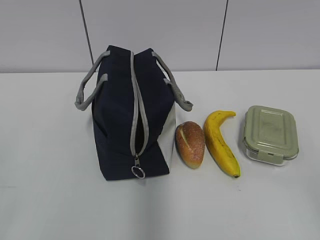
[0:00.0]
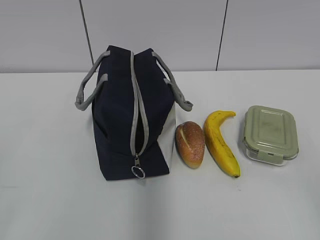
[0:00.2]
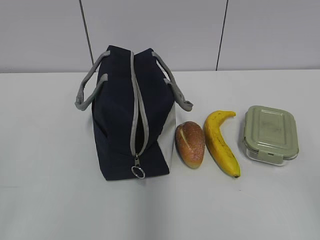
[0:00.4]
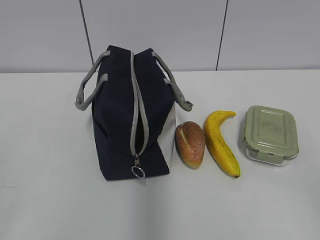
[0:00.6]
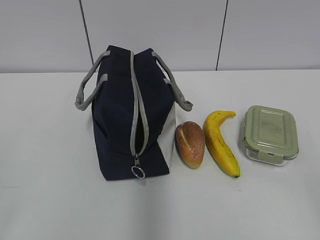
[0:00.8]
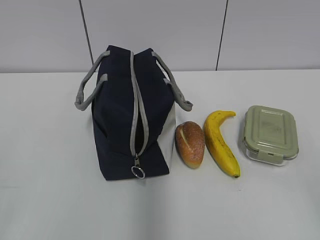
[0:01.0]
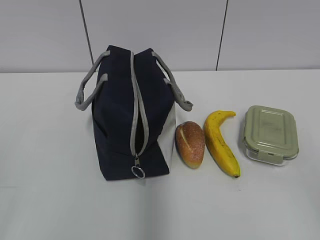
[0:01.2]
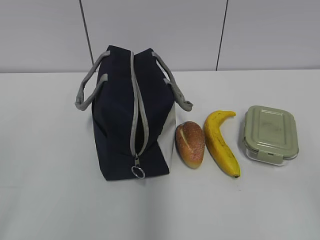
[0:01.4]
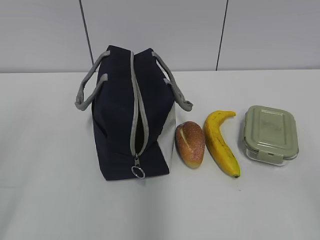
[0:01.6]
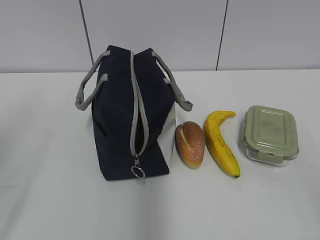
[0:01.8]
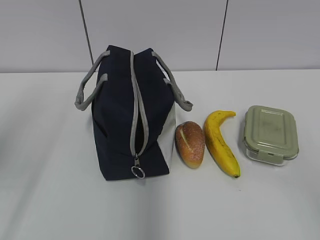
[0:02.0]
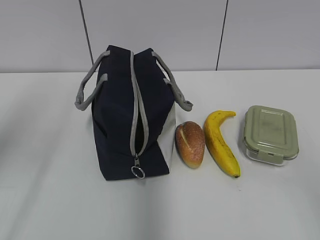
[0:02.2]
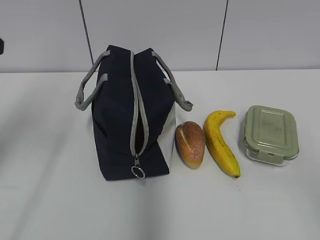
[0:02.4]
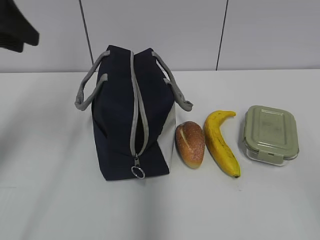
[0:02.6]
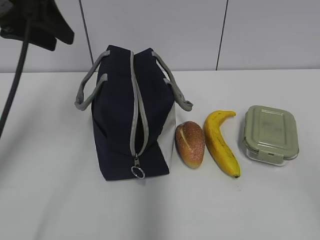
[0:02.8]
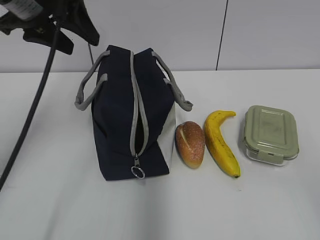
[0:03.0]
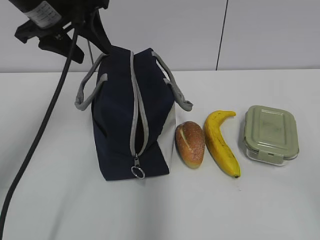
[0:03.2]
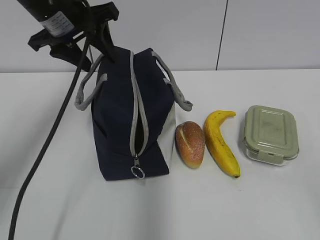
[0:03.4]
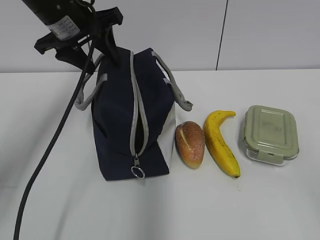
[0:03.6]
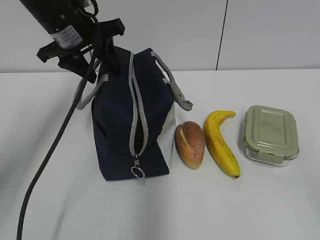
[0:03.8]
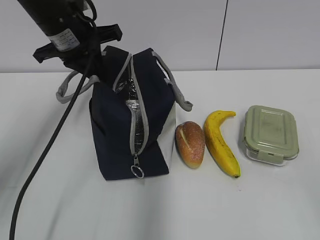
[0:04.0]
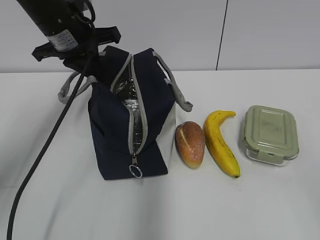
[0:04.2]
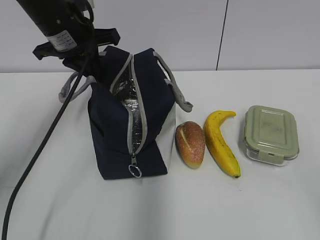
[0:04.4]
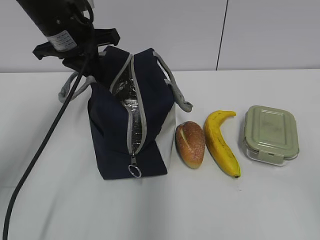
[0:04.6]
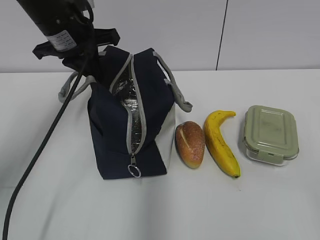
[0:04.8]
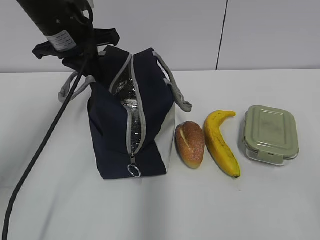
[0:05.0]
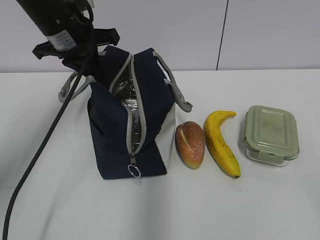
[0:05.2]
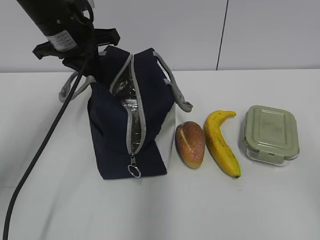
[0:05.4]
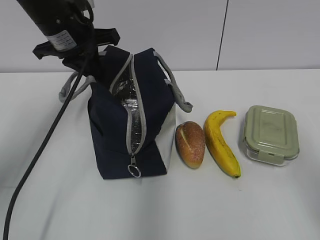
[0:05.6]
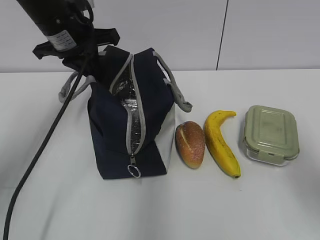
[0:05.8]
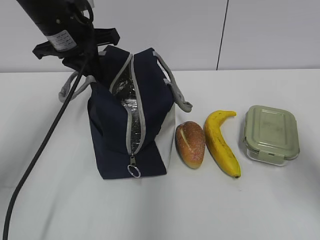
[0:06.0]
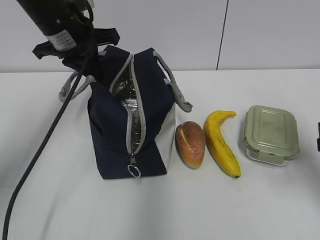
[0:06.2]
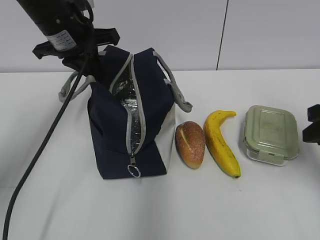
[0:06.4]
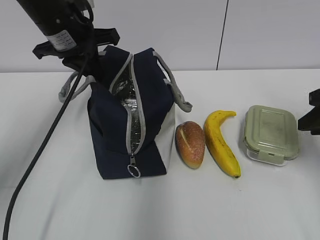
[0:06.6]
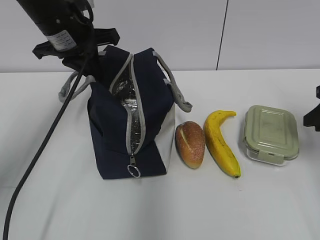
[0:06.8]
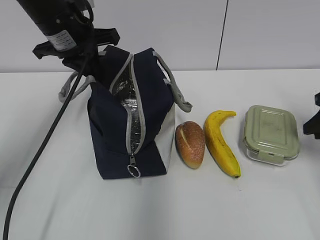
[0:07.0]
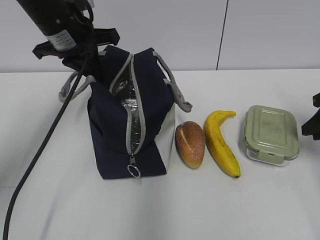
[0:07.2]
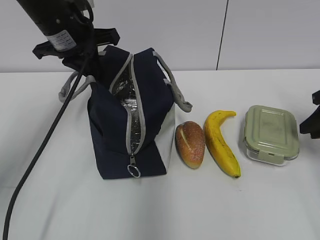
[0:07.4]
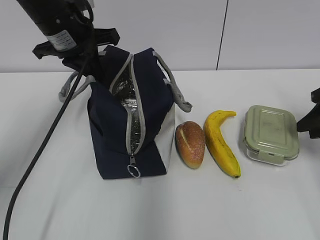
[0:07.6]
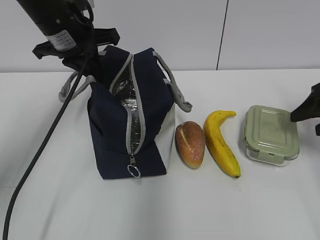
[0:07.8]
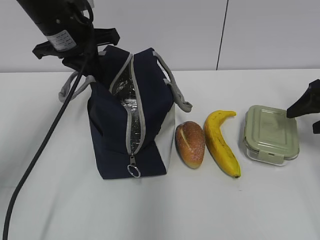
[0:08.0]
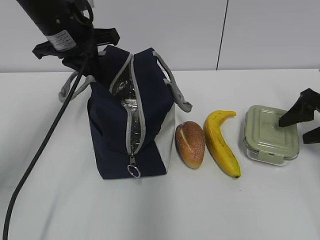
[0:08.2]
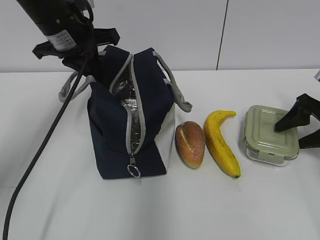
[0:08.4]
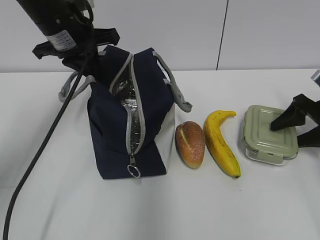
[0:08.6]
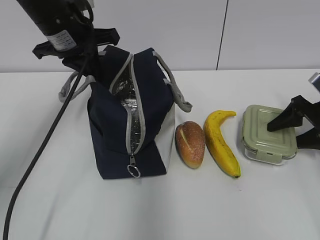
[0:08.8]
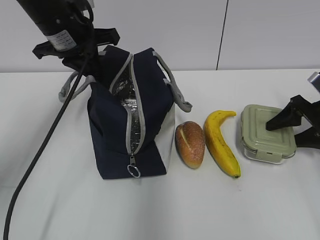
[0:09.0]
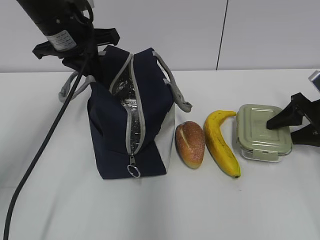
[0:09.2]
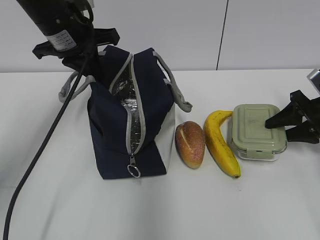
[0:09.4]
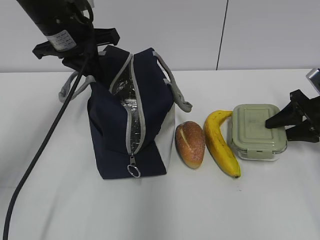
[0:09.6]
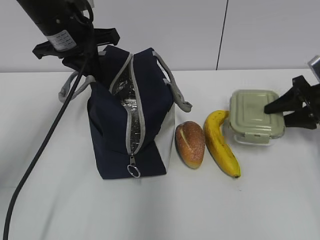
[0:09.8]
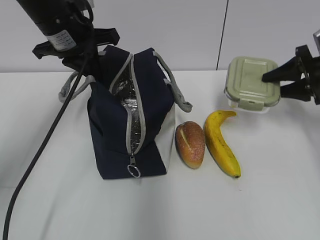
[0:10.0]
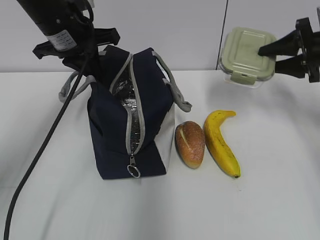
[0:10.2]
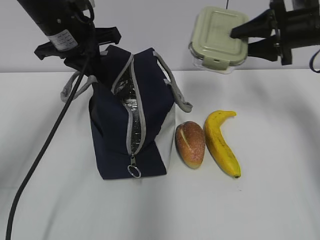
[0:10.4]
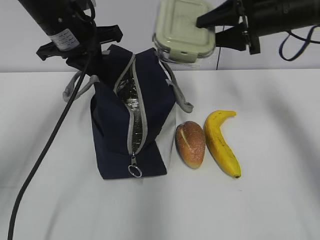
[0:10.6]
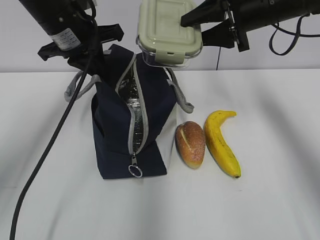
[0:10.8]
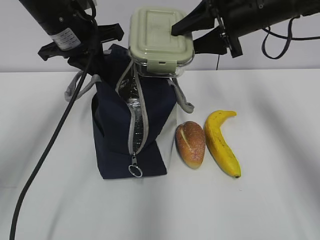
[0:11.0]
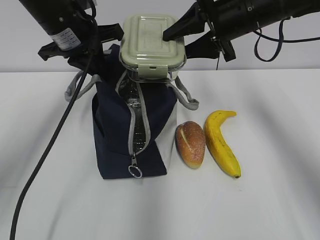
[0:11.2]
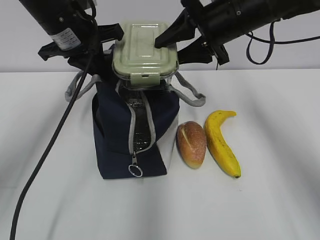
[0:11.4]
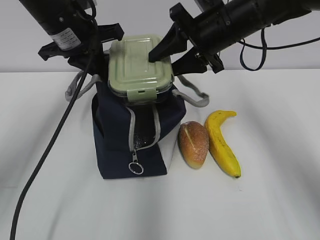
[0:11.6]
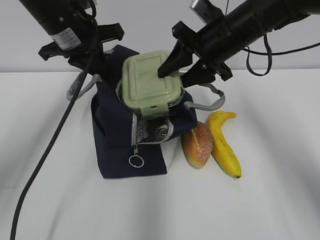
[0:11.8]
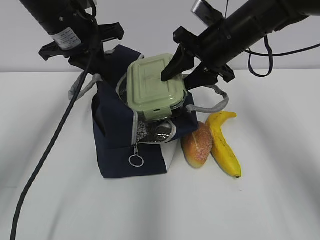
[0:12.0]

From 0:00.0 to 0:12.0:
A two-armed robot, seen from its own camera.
Step, from 0:00.0 to 0:09.2: Grab the lunch box with your right hand.
From 0:01.6 to 0:03.0: The left gripper moves forward and to the right, approximately 30 cm.
From 0:03.0 to 0:04.4: The left gripper is displaced downward and forward by about 10 cm, and closes up.
From 0:04.4 to 0:06.0: The right gripper is displaced forward by some 20 cm.
From 0:06.0 to 0:07.6: The right gripper heads forward, to the right and downward, covering about 20 cm.
From 0:07.6 to 0:09.0: The right gripper moves downward, about 5 cm, and opens up.
From 0:09.0 to 0:10.4: The right gripper shifts about 15 cm upward, to the left and forward.
From 0:10.4 to 0:12.0: The right gripper heads to the left, covering some 15 cm.

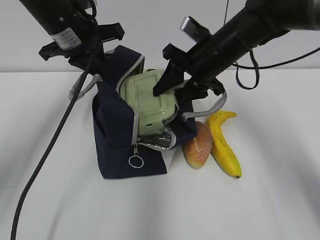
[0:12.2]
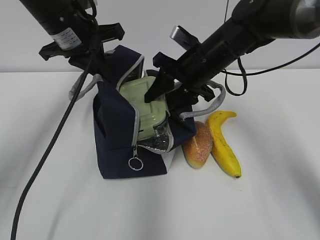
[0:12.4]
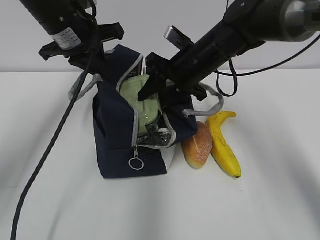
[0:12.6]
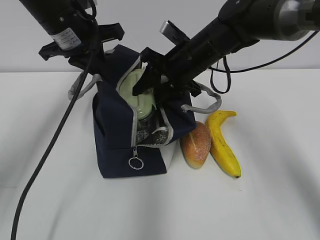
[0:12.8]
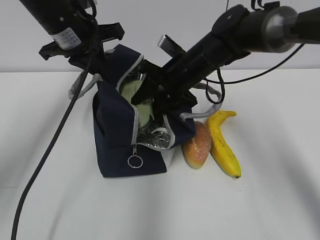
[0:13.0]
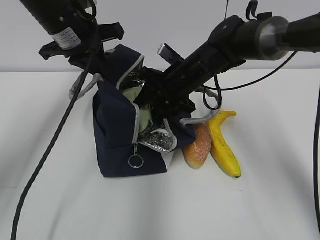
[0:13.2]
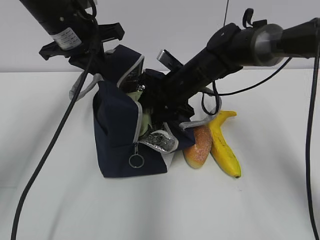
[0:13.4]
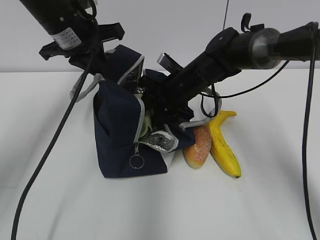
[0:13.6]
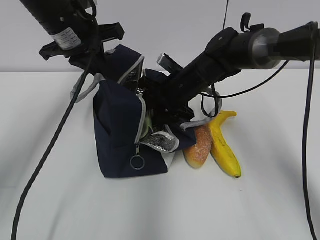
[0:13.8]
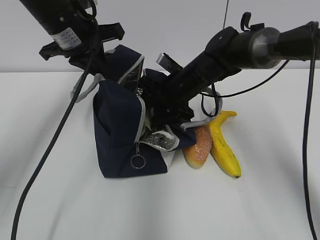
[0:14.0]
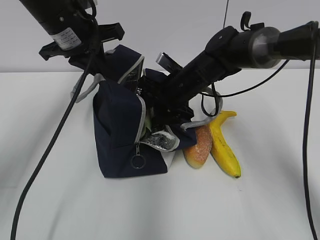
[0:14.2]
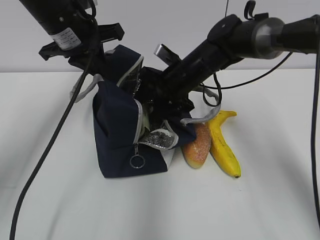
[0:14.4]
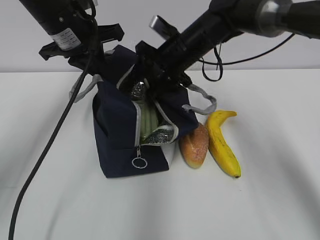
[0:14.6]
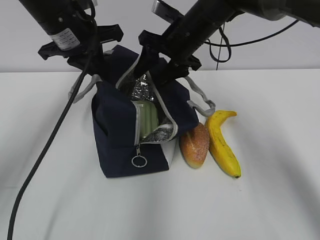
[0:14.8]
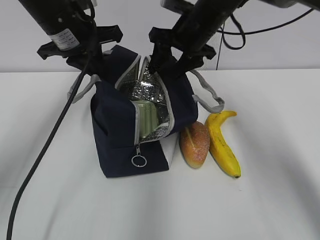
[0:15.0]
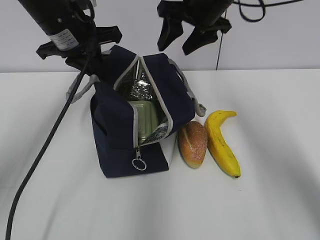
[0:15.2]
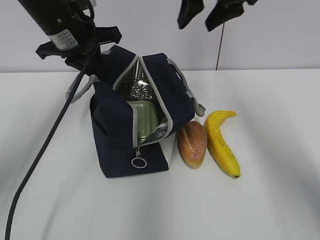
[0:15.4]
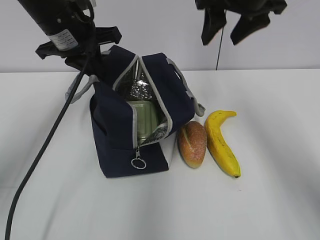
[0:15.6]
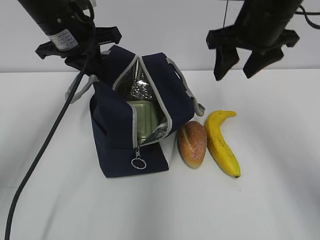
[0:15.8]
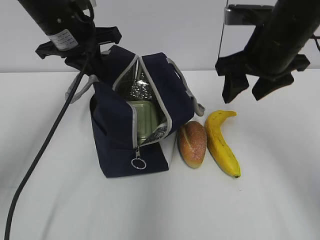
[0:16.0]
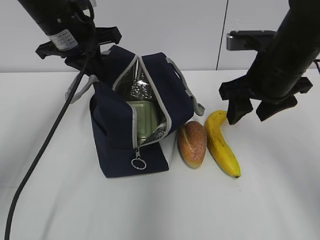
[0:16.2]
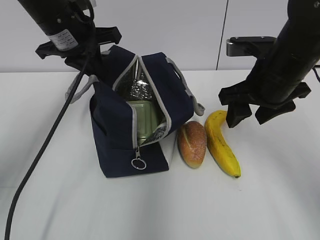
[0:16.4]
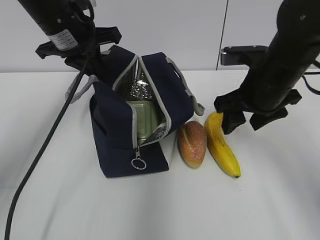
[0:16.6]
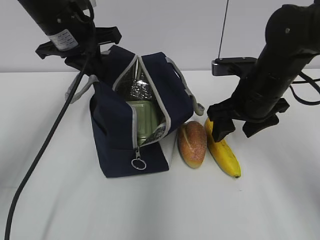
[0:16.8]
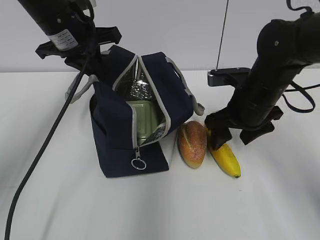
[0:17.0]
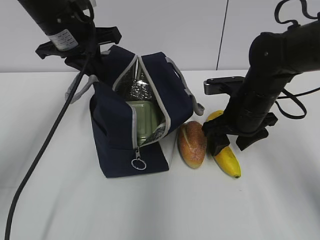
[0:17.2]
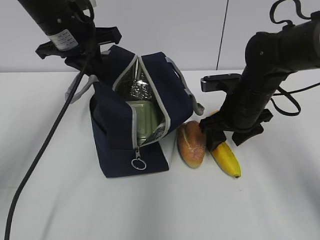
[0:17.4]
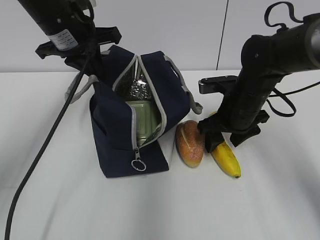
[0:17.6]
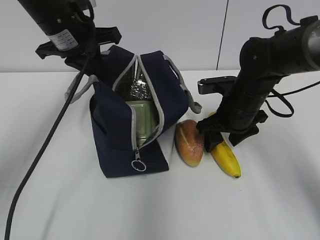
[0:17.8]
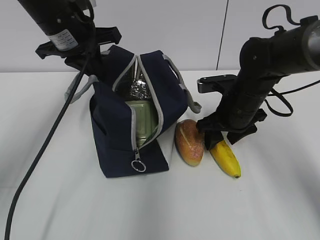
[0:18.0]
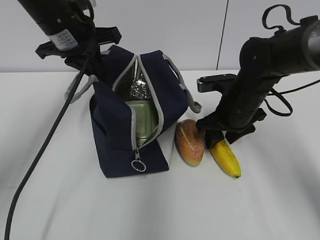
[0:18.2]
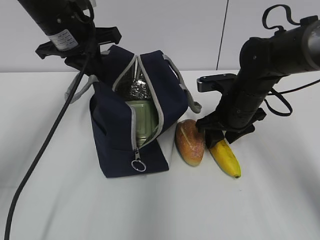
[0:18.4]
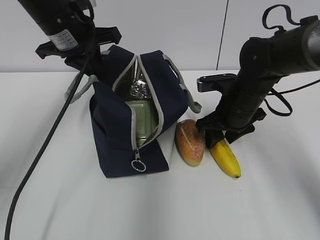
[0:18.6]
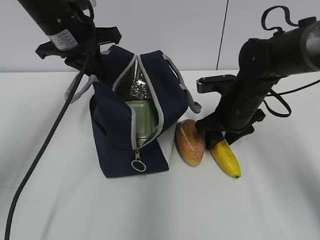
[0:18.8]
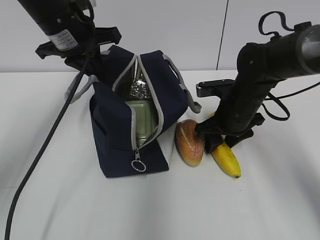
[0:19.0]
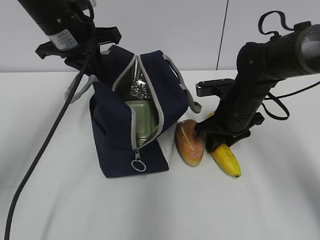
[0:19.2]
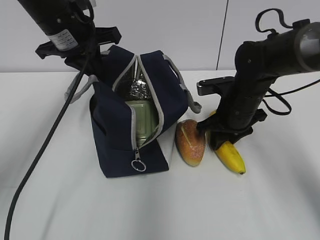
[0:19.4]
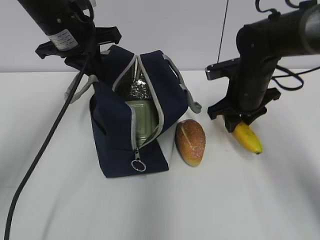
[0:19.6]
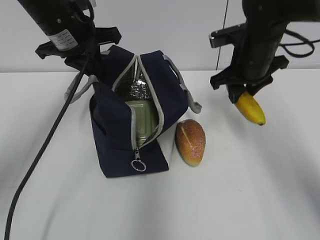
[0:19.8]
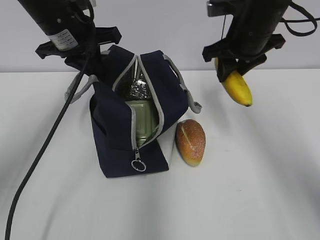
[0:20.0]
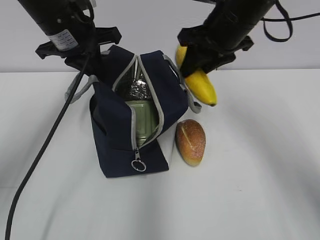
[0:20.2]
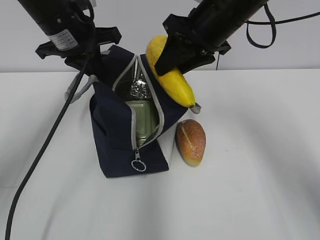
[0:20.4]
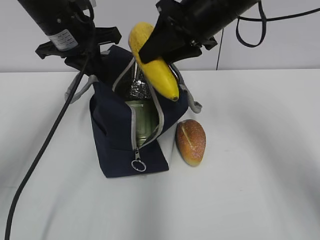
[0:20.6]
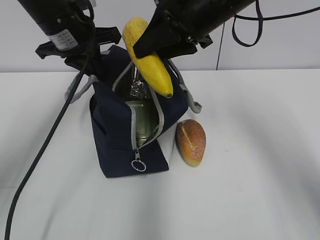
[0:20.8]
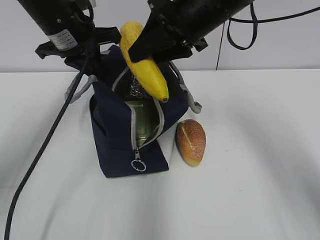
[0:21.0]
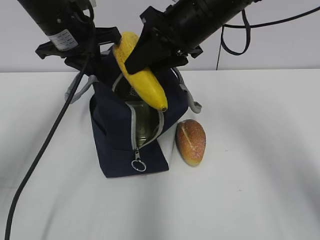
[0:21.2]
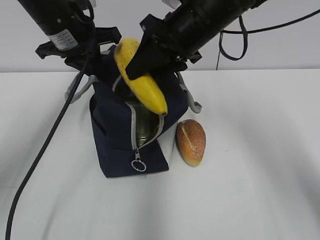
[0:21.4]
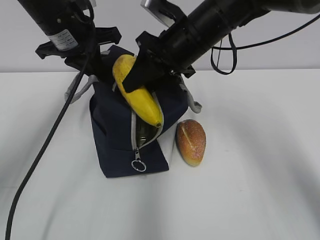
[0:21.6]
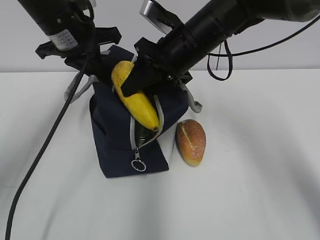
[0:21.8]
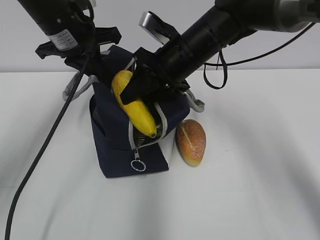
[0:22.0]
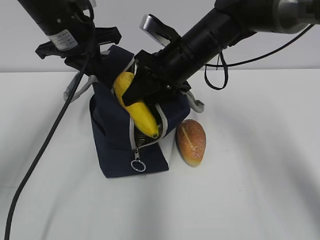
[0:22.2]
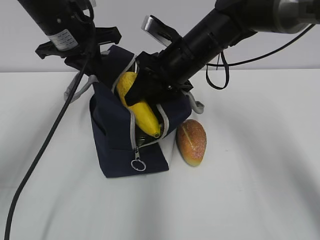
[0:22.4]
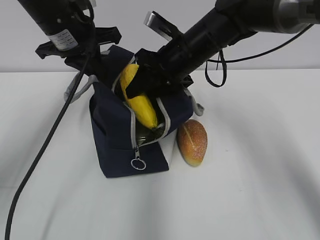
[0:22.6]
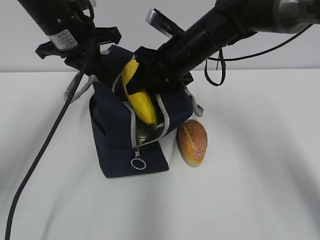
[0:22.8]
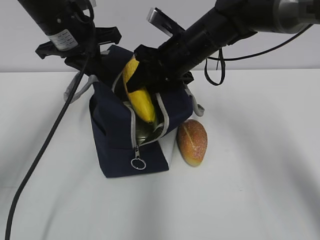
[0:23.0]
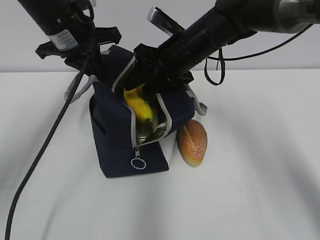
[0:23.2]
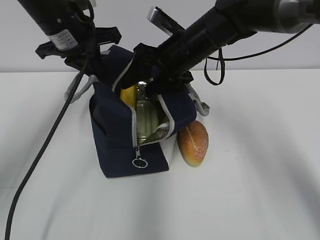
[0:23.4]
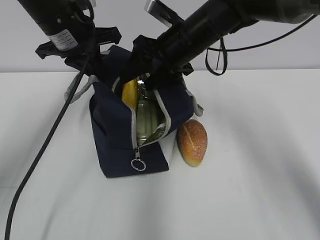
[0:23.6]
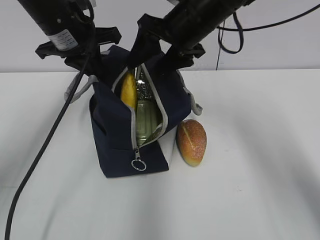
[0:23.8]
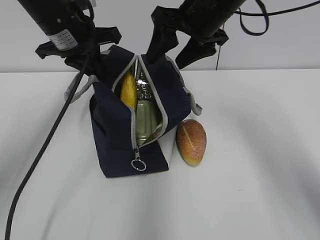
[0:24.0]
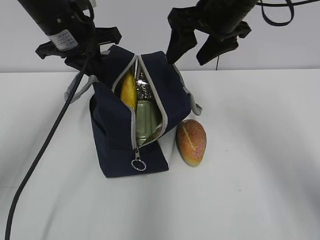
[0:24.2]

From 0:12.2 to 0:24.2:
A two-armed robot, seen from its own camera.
Step, from 0:12.2 to 0:14.4: Place it into the bag with your right hand.
Step, from 0:14.6 to 0:19.2: Grab the banana with your right hand.
Step, from 0:19.4 to 0:23.2: Place it into the bag with your right hand.
From 0:12.2 to 0:13.8: The right gripper goes approximately 10 cm downward.
From 0:13.8 to 0:15.2: The right gripper is displaced upward by about 15 cm.
From 0:15.2 to 0:16.6: The right gripper travels backward, downward and to the right by some 15 cm.
From 0:16.6 to 0:18.2: The right gripper travels downward by about 10 cm.
From 0:18.2 to 0:19.8: The right gripper shifts approximately 10 cm upward.
From 0:19.8 to 0:21.2: The right gripper travels to the left and upward by approximately 15 cm.
From 0:21.2 to 0:22.6: The right gripper moves downward, about 10 cm.
From 0:22.6 to 0:24.2: The right gripper is displaced upward by roughly 10 cm, and opens up.
